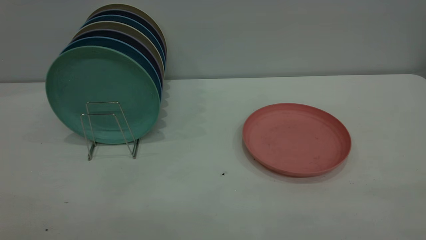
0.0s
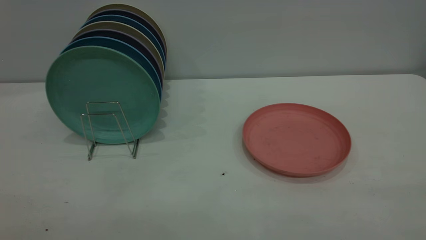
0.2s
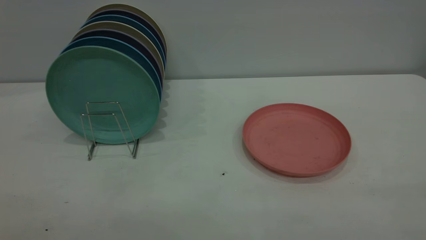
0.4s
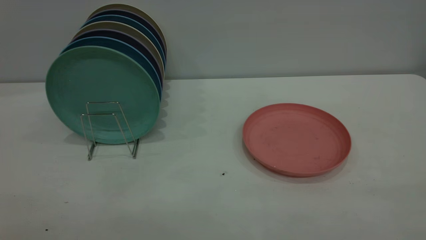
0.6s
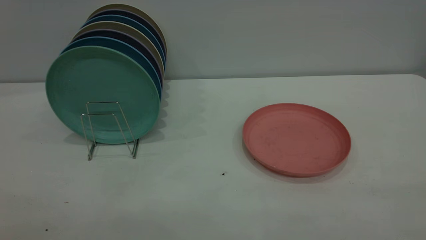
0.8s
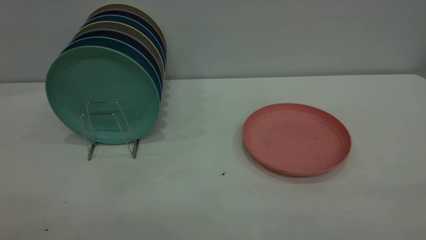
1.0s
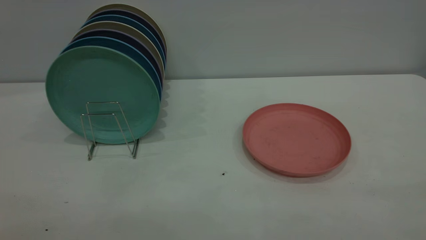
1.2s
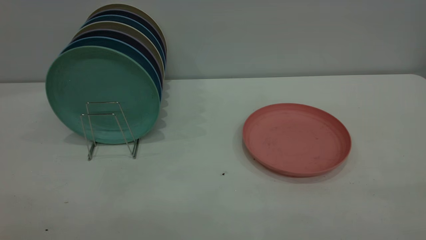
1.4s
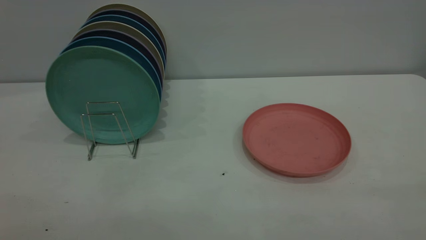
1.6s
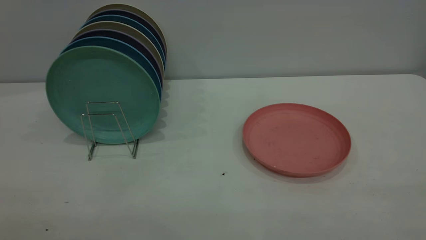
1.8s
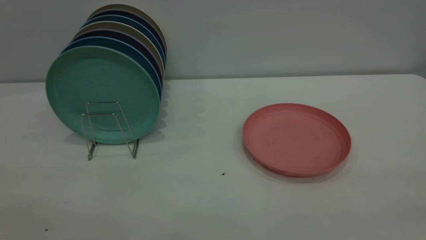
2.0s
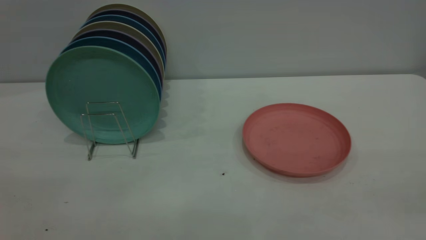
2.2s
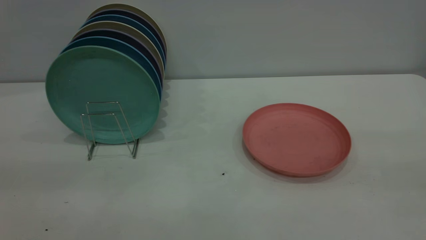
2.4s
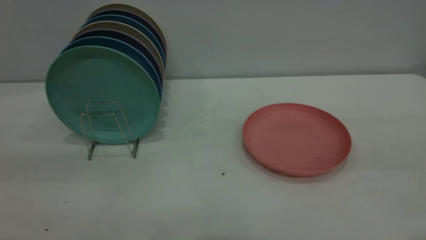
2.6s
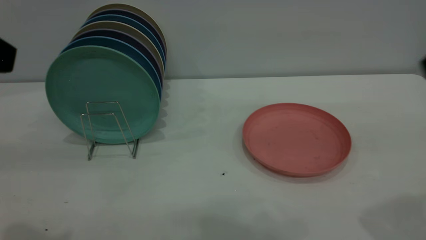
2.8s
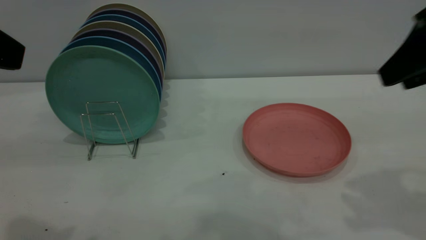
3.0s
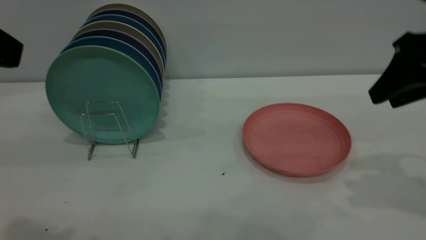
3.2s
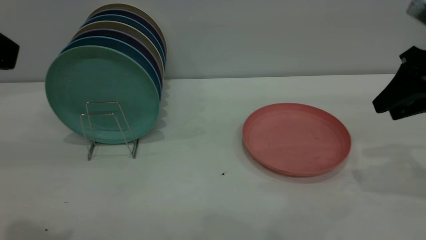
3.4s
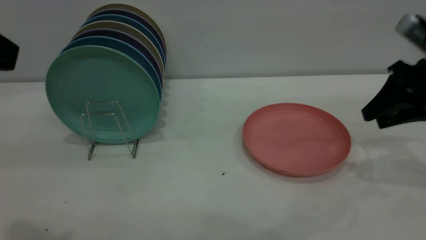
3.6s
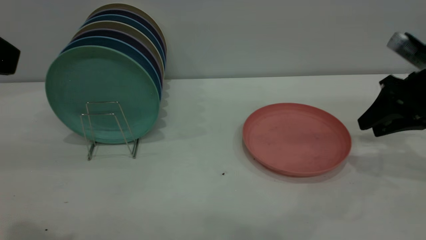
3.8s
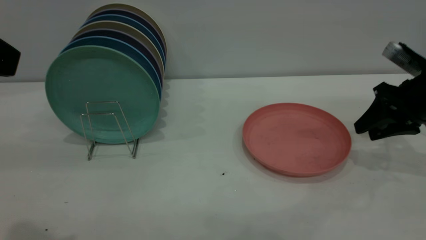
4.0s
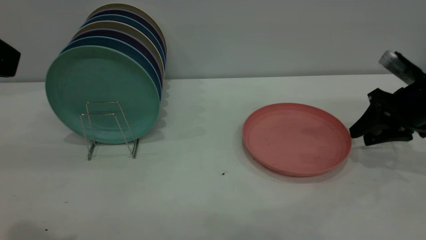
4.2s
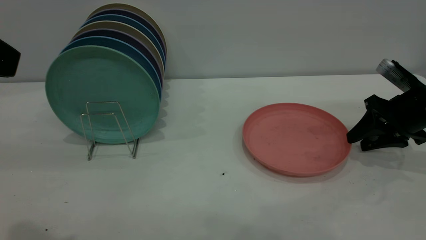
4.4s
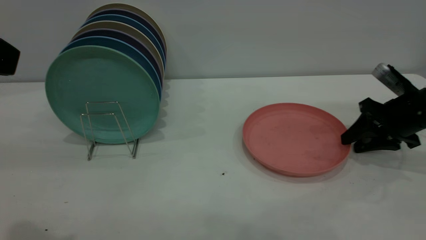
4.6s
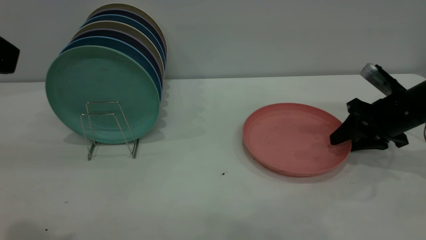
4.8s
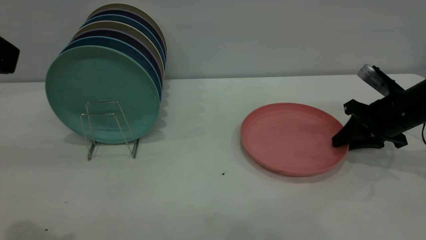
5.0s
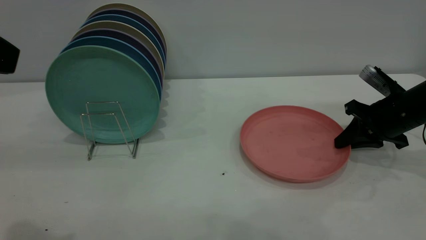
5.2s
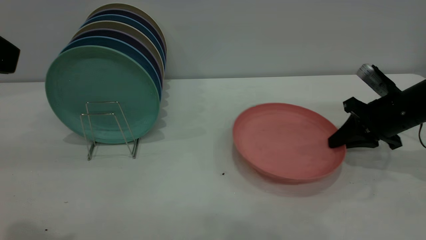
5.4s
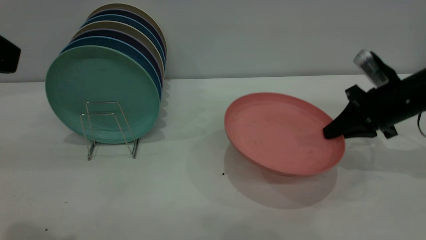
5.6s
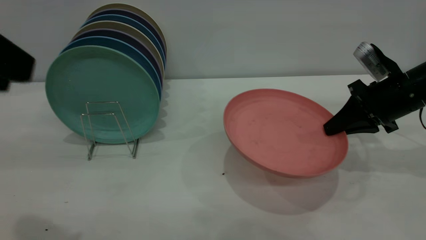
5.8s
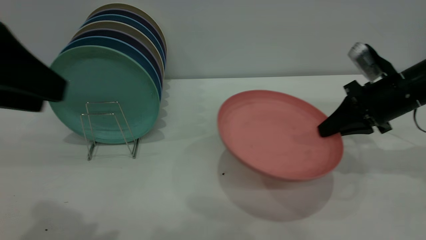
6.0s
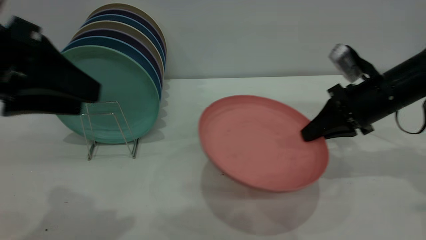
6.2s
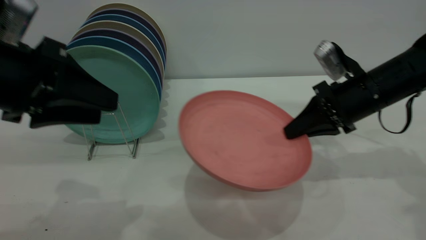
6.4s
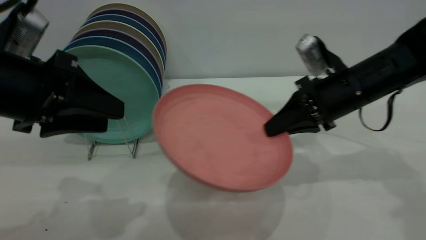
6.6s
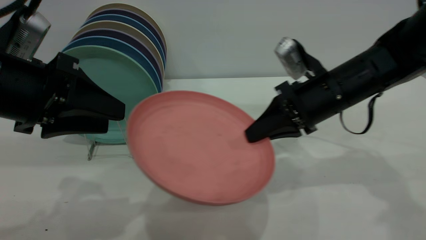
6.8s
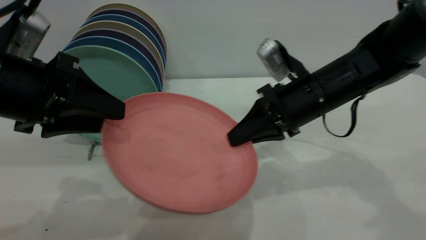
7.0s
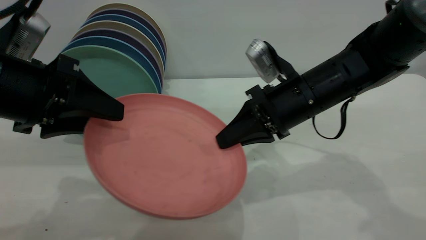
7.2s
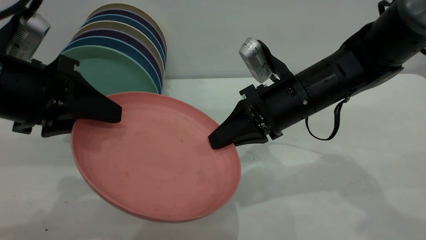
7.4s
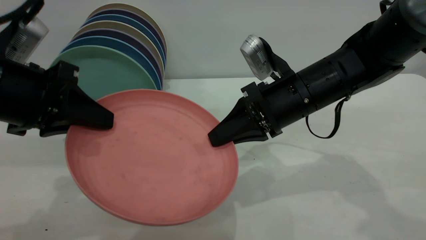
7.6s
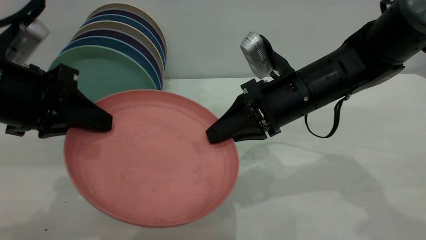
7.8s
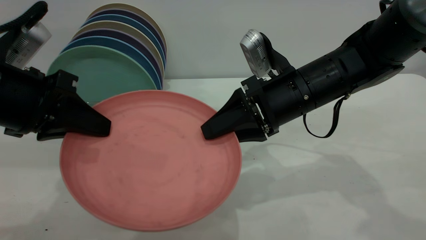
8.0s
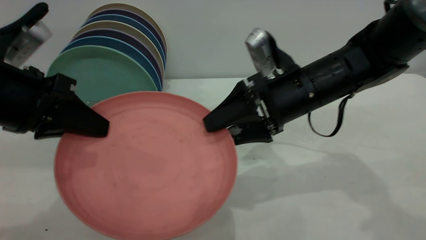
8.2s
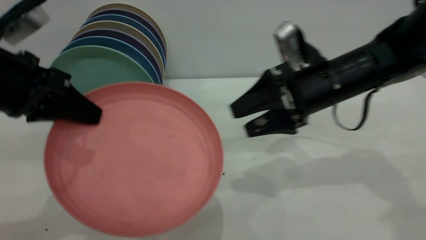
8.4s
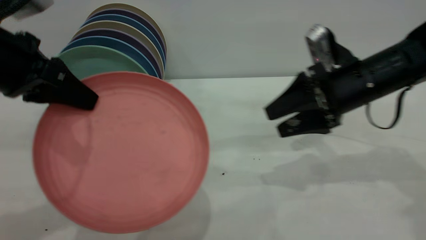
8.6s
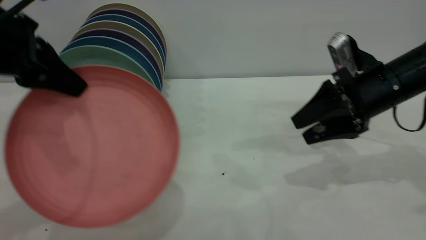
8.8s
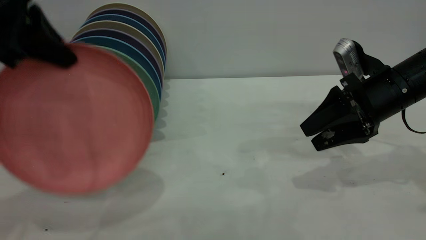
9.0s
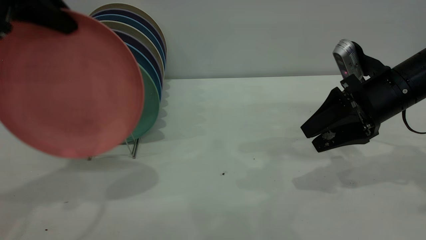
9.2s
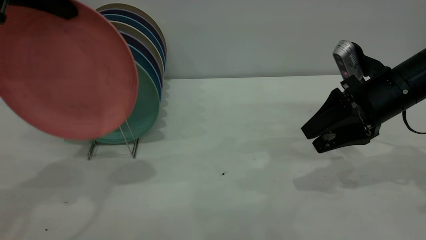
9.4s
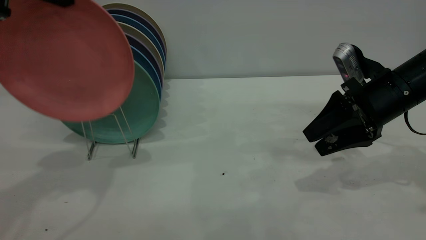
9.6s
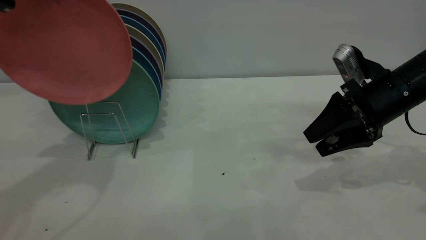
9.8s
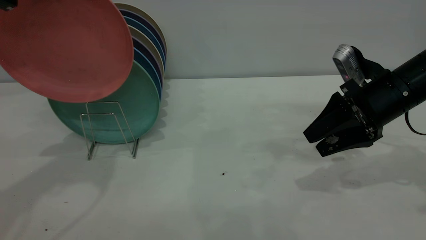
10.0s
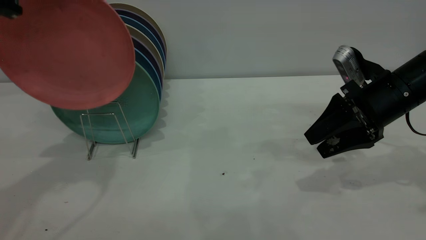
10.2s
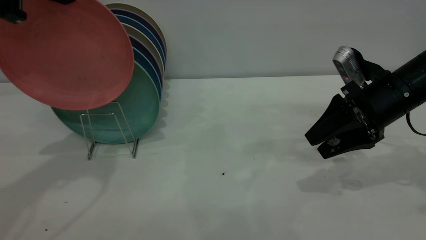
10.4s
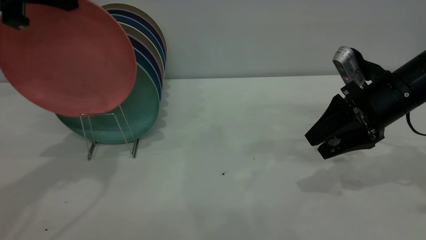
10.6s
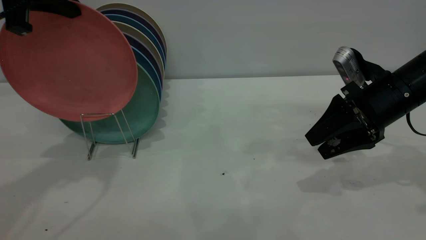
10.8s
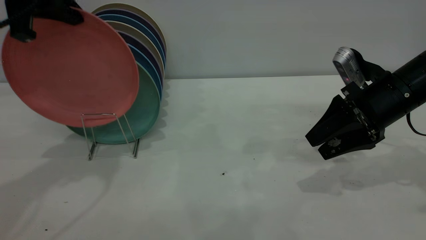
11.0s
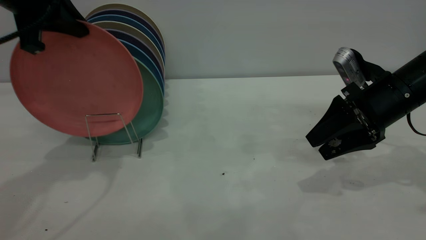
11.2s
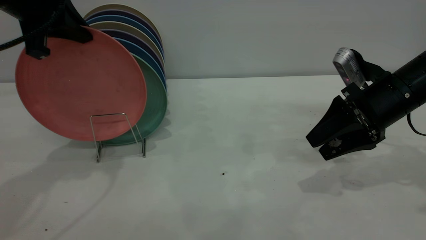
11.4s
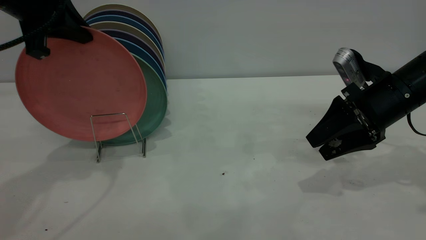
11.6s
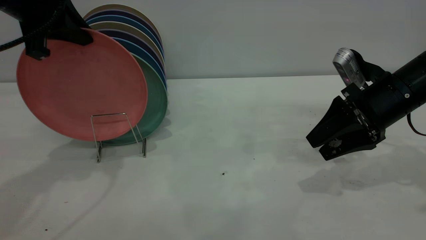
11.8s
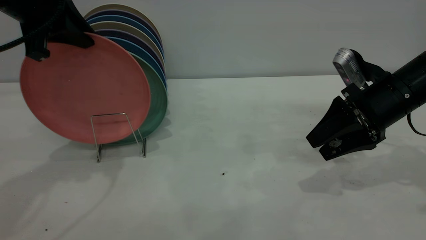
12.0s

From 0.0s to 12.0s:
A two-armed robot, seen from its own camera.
Task of the whole recording: the right gripper grasp the pink plate, the right gripper pass the pink plate to the left gripper, and the left gripper place the pink plate on the plate rack.
Step, from 0.0s to 6.0s: Pick up the plate with the right gripper.
Step, from 6.2s to 9.6s: Pass the plate from the right gripper to the left gripper.
From 0.0s to 1.6s: Both grippers stay about where they are.
From 1.6s to 3.0s: Both grippers travel together forward, approximately 25 cm.
From 3.0s to 4.4s: The right gripper goes roughly 25 cm downward and forward.
From 4.4s to 6.0s: The right gripper shifts about 5 cm to the left, and closes its fingers, while the left gripper changes place by roughly 5 cm.
From 6.0s to 7.6s: The right gripper shifts about 15 cm to the left, while the left gripper moves downward, roughly 10 cm, and closes its fingers.
From 7.6s to 9.0s: The right gripper travels to the right by approximately 15 cm, and opens its fingers. The left gripper heads upward and forward, covering approximately 10 cm.
From 9.0s to 10.4s: The left gripper moves approximately 5 cm.
From 10.4s to 12.0s: The left gripper goes about 5 cm downward, and opens.

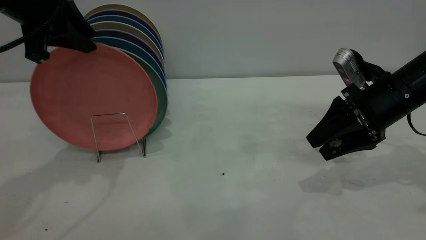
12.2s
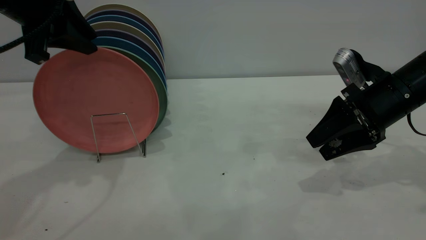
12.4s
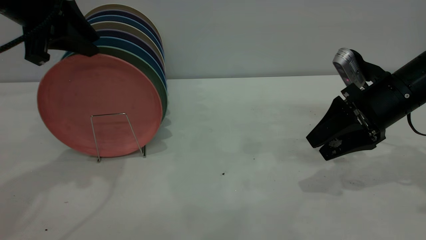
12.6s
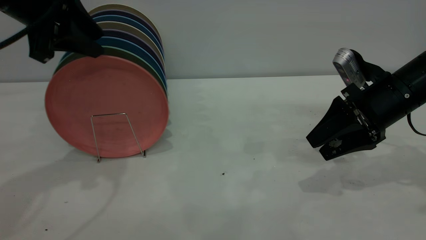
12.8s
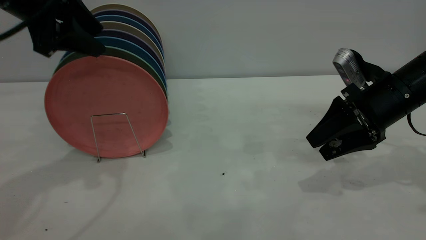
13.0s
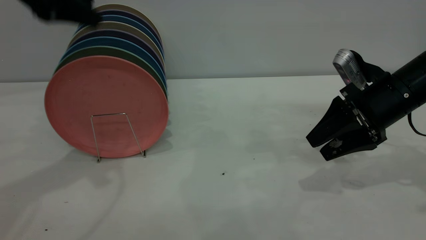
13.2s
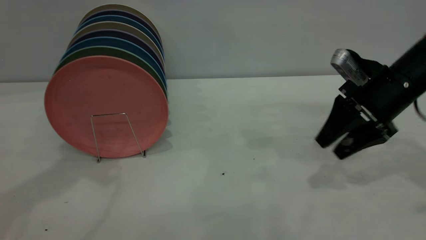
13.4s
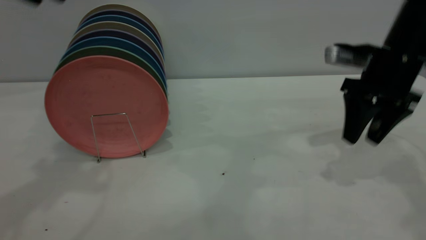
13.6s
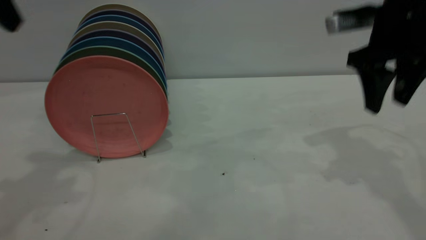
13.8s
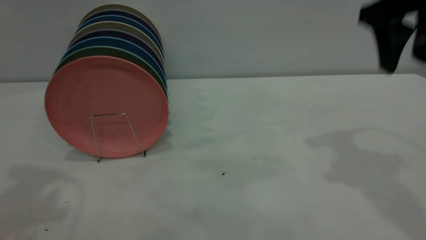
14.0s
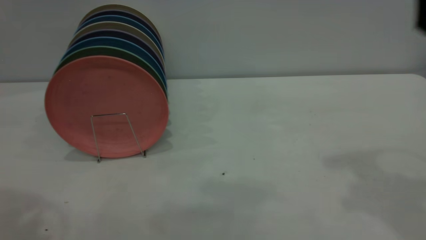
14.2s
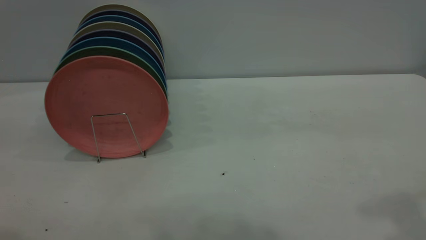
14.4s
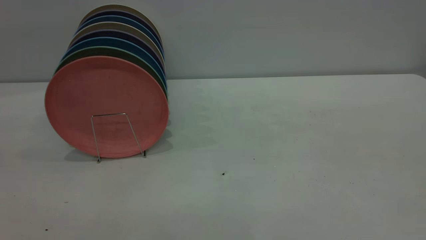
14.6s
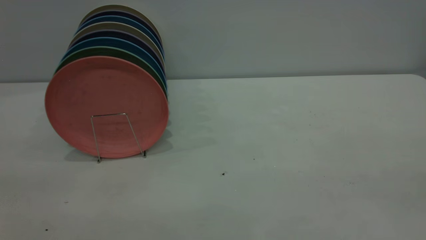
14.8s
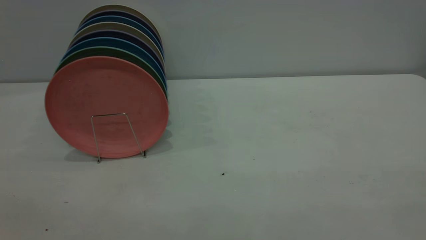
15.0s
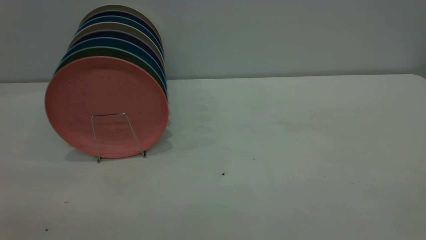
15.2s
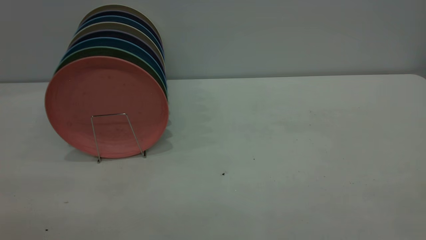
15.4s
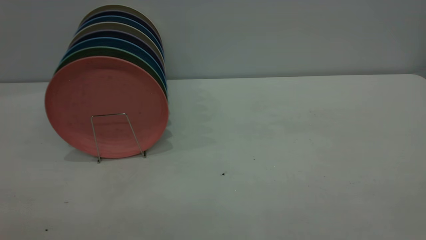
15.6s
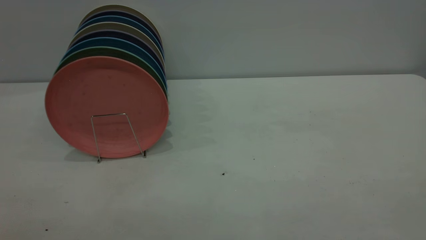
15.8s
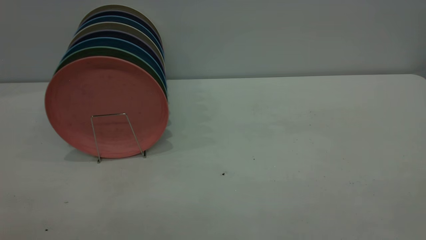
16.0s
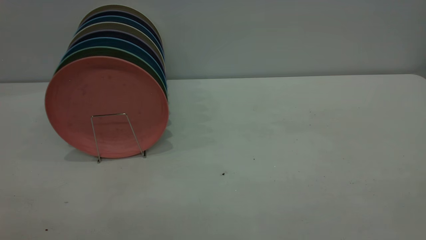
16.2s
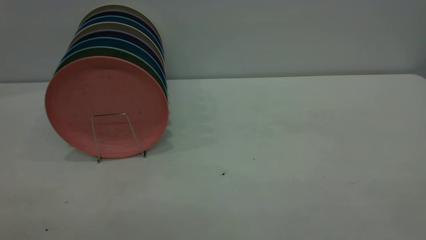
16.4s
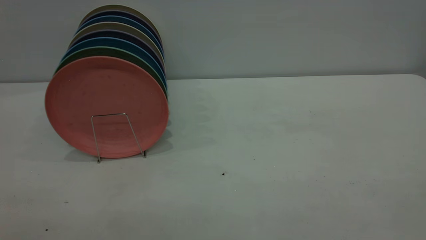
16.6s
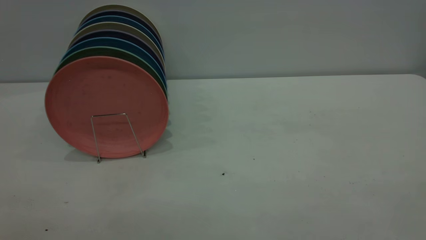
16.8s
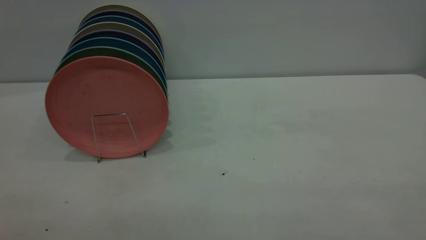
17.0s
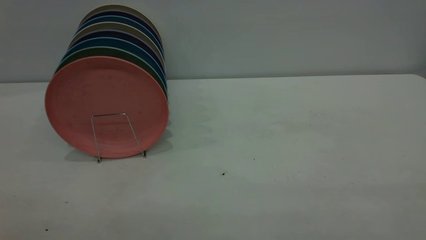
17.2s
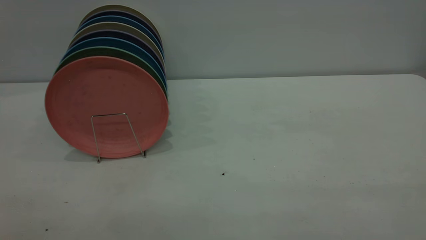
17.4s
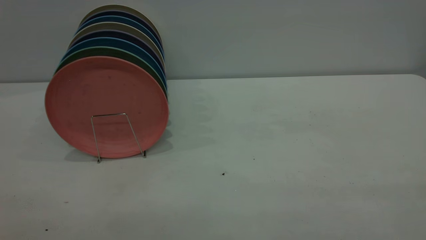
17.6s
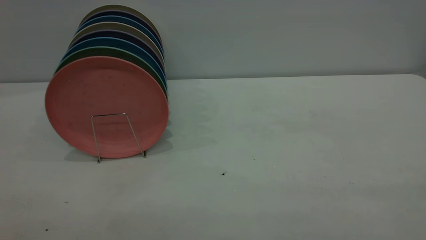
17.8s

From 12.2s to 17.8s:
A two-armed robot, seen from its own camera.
Task of the whole recording: the right gripper grasp the pink plate, the right gripper pass the pink plate to the left gripper, and the left gripper place the pink plate on the plate rack.
From 12.2s to 13.6s: The left gripper moves upward and backward, some 10 cm, and opens. Meanwhile the right gripper is displaced upward by some 5 cm.
From 13.6s to 15.0s: The right gripper shifts approximately 50 cm backward and upward.
